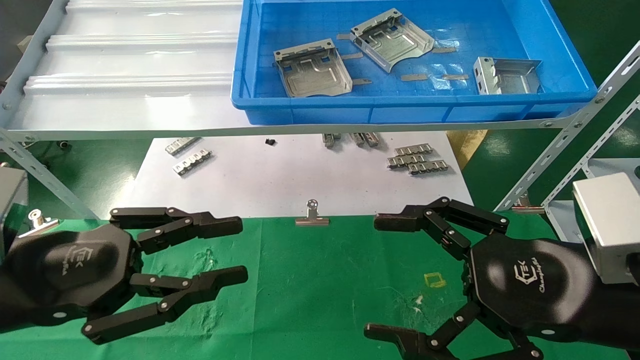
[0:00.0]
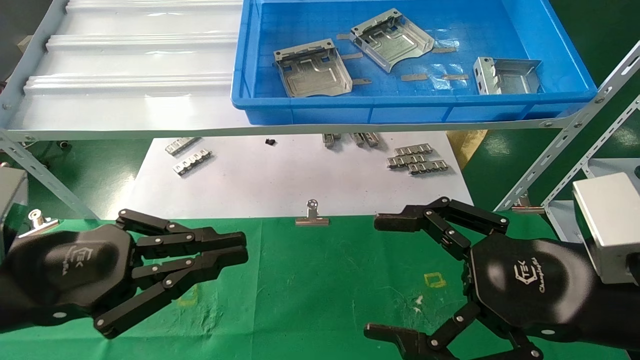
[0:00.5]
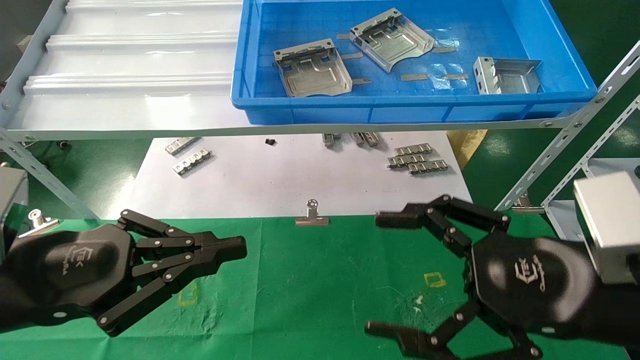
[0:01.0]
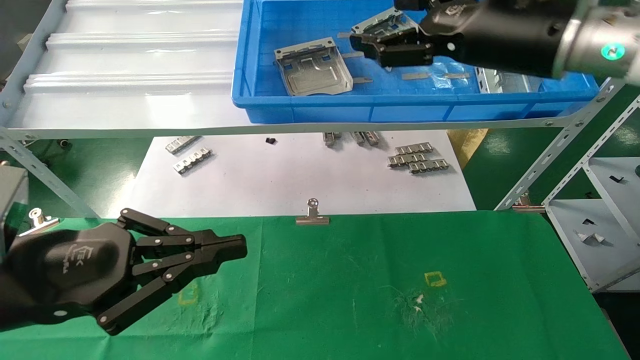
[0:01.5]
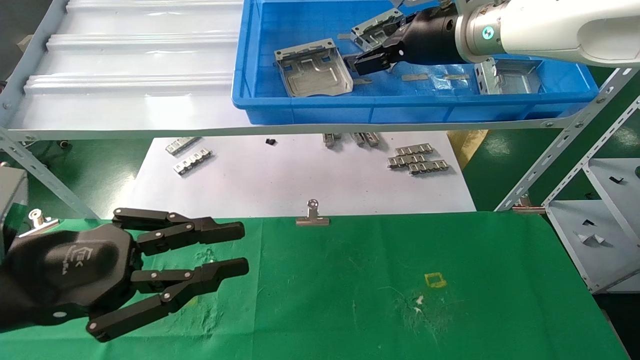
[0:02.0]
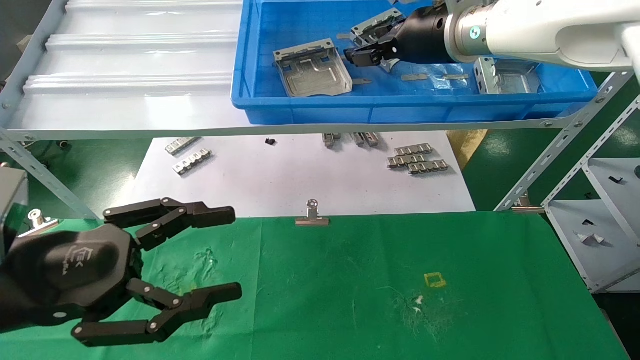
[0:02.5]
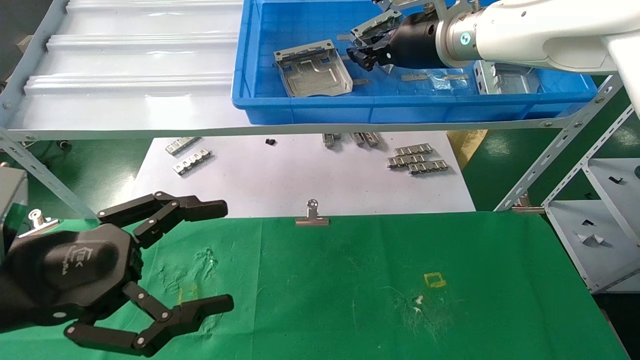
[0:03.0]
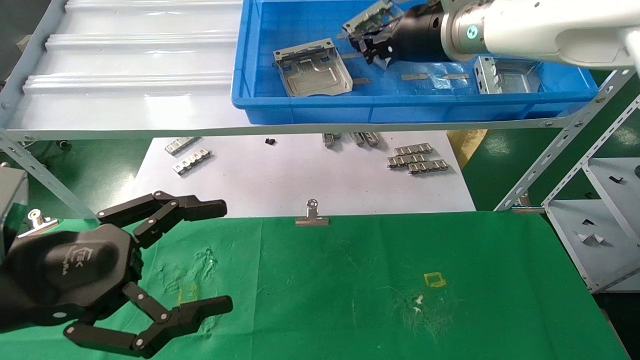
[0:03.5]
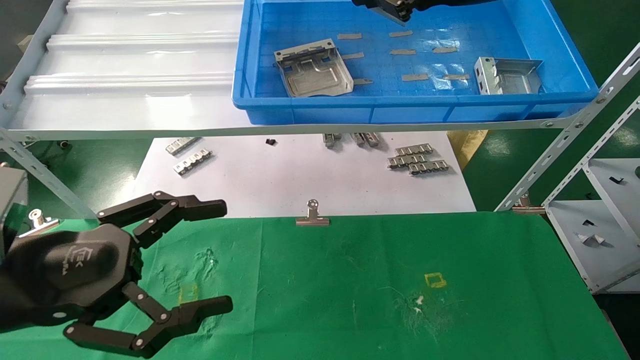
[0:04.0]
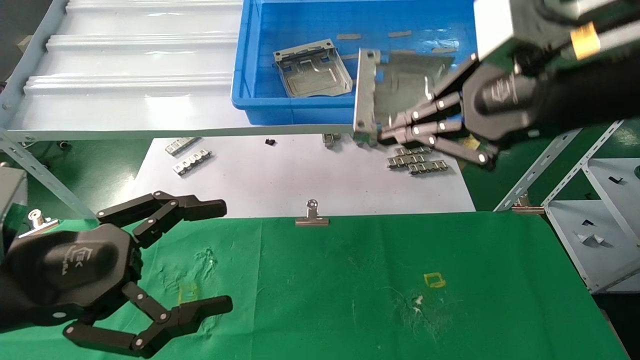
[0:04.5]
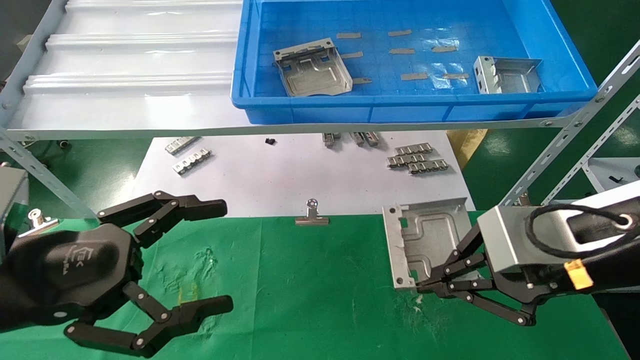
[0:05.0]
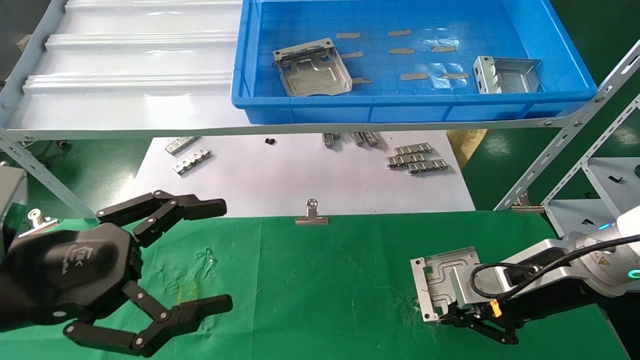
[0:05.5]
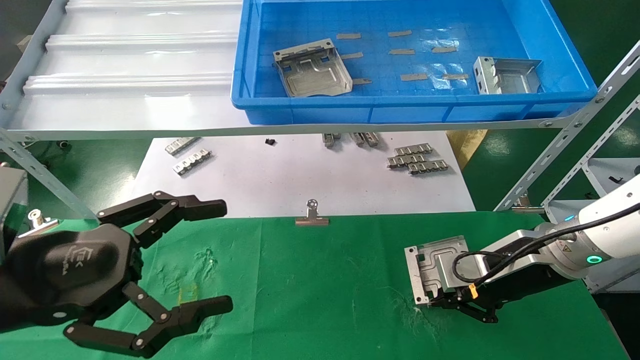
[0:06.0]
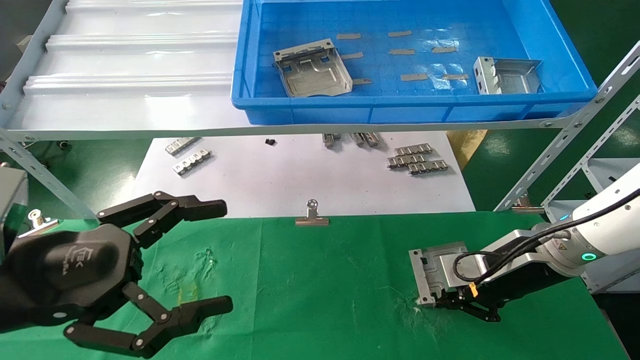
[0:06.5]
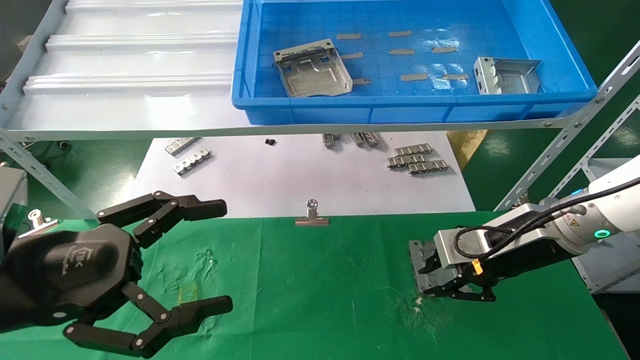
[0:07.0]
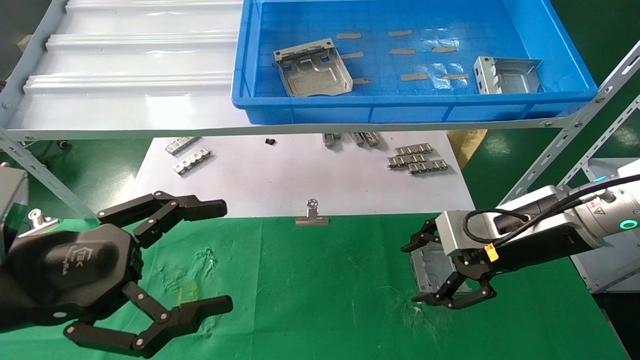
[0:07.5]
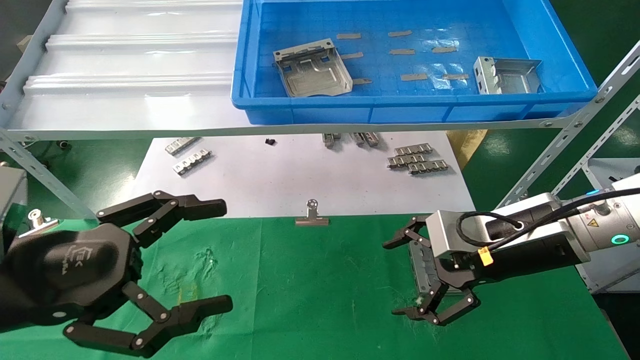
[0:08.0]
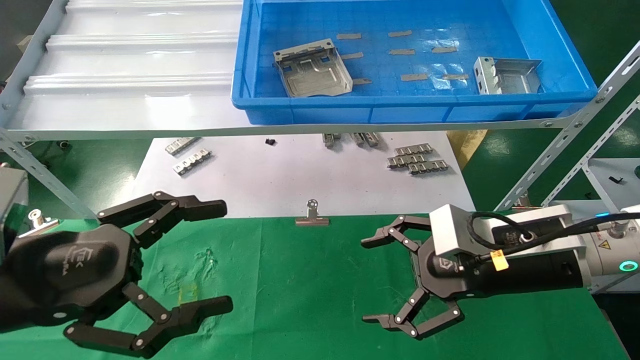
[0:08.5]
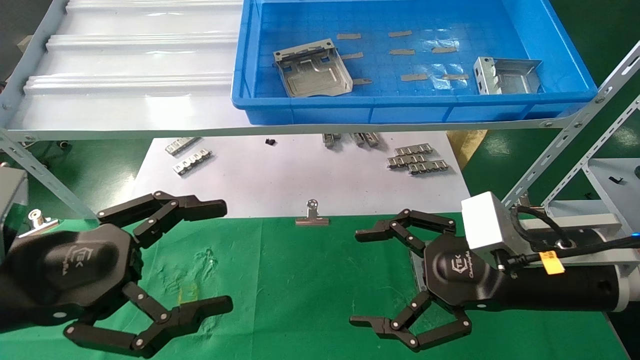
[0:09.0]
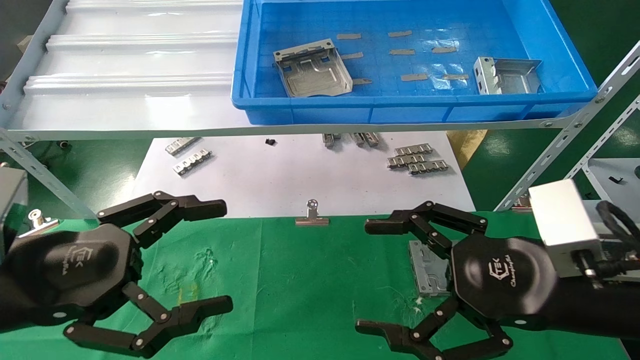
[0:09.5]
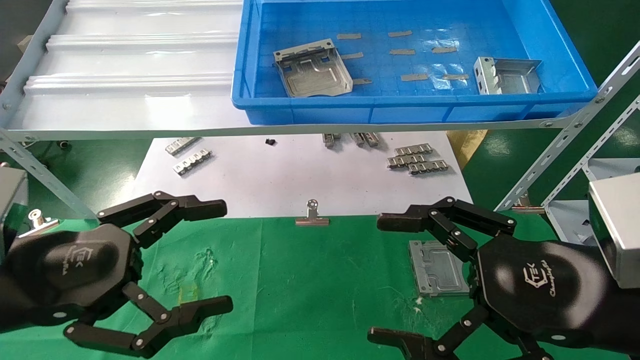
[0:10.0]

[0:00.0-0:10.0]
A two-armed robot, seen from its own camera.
Task of the whole recording: use the mechanical arm to pick up the parts and place them on the table.
Step, 0:01.5 to 0:04.0: Pick up the hard drive bracket from the feeding area.
Step, 0:04.5 to 0:07.5: Place the hard drive bracket into the box.
0:00.0 to 0:02.0: The right gripper moves forward and upward, about 30 cm.
0:02.0 to 0:04.0: The right gripper moves backward and upward, approximately 10 cm, and closes its fingers, while the left gripper opens.
0:04.0 to 0:06.0: The right gripper travels downward by some 30 cm.
0:06.0 to 0:08.0: The right gripper ends up roughly 5 cm from where it was, and opens up.
0:08.0 to 0:10.0: The right gripper goes some 15 cm backward.
